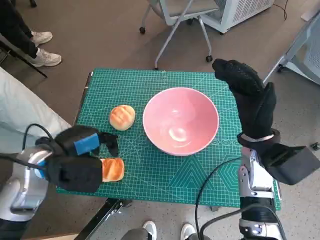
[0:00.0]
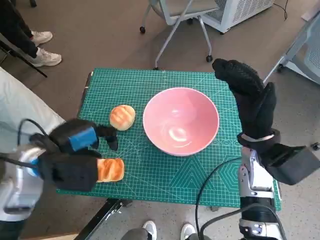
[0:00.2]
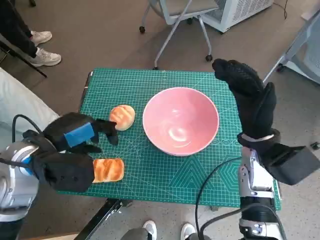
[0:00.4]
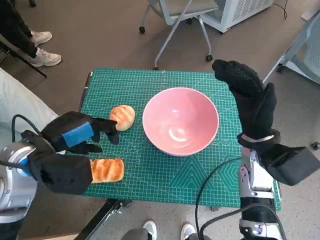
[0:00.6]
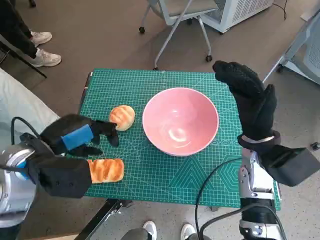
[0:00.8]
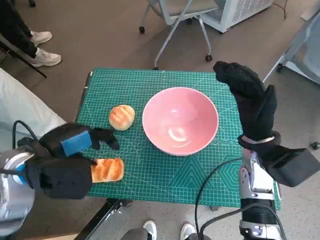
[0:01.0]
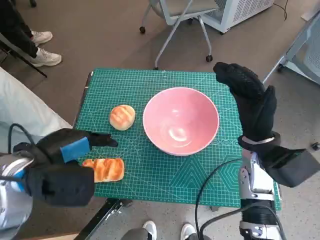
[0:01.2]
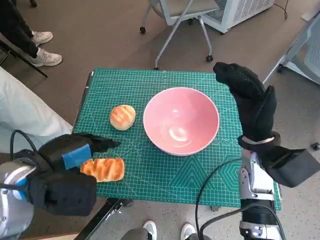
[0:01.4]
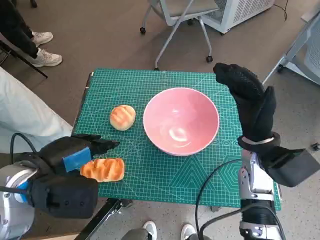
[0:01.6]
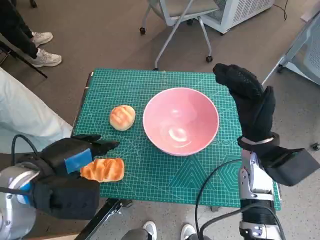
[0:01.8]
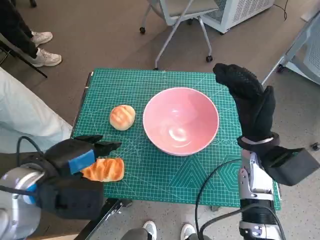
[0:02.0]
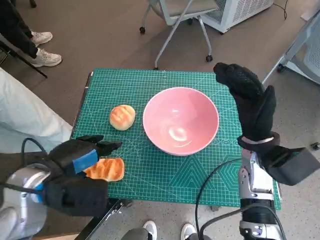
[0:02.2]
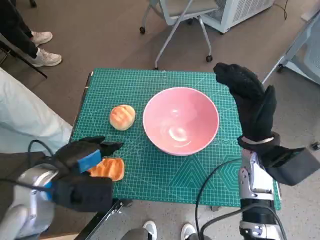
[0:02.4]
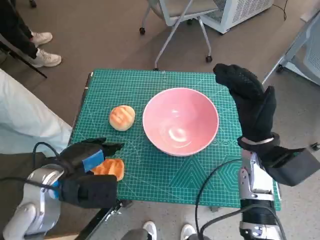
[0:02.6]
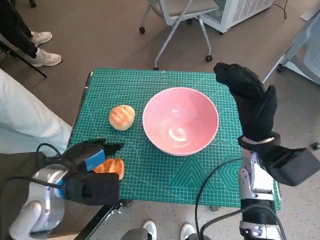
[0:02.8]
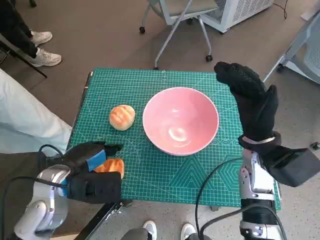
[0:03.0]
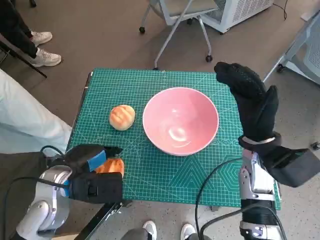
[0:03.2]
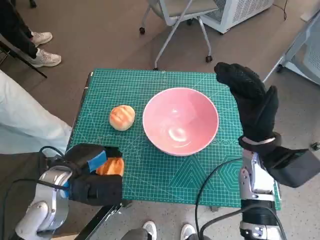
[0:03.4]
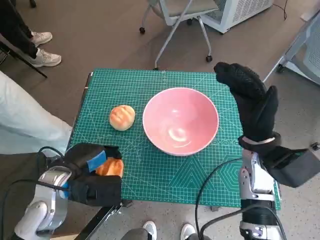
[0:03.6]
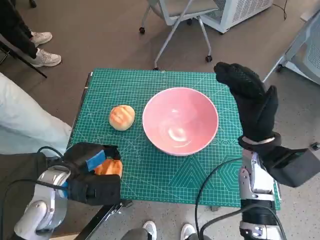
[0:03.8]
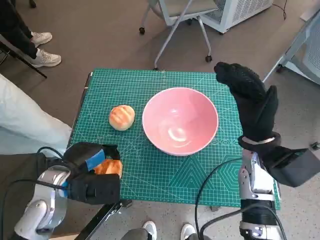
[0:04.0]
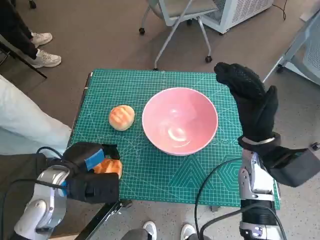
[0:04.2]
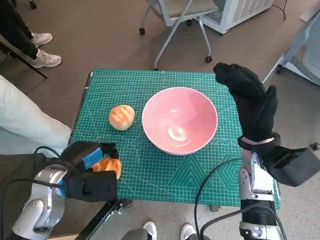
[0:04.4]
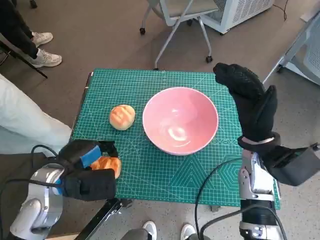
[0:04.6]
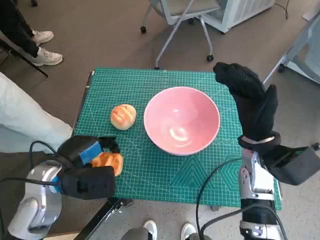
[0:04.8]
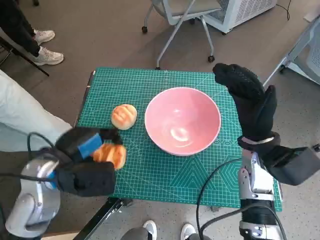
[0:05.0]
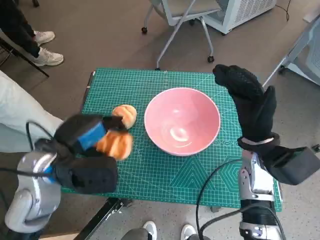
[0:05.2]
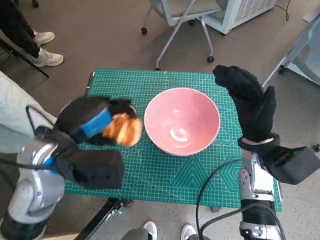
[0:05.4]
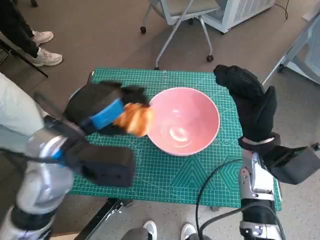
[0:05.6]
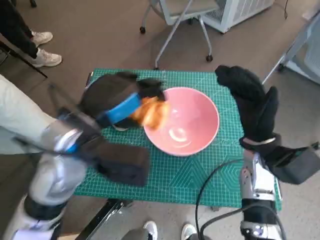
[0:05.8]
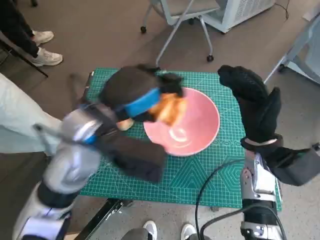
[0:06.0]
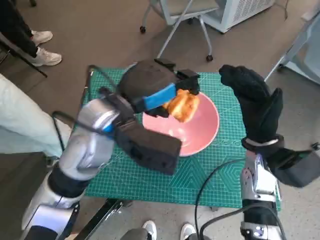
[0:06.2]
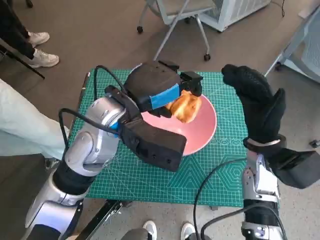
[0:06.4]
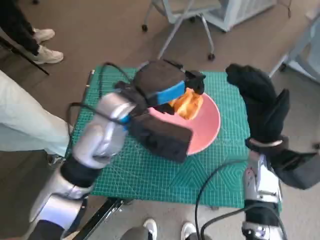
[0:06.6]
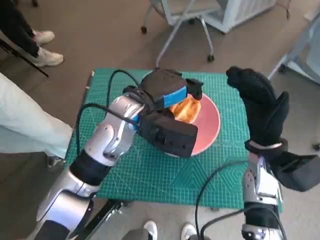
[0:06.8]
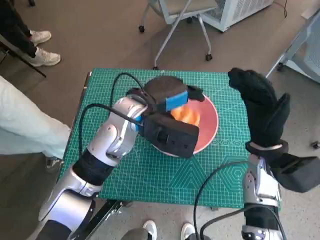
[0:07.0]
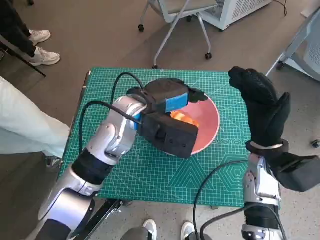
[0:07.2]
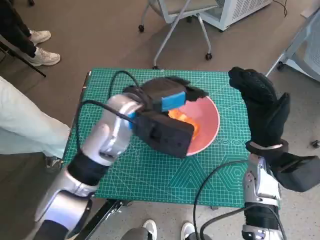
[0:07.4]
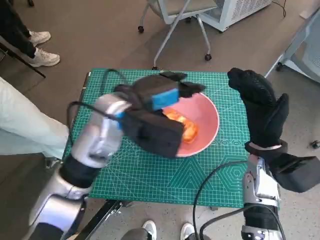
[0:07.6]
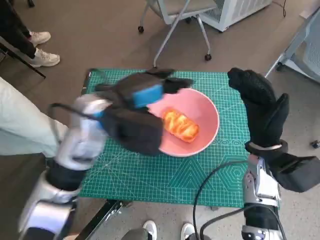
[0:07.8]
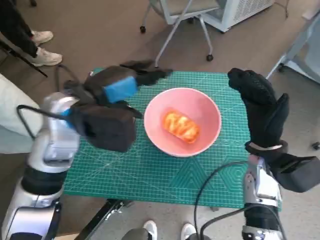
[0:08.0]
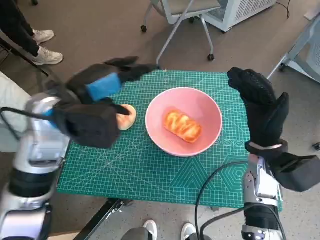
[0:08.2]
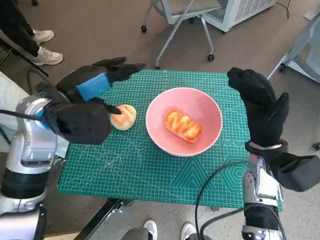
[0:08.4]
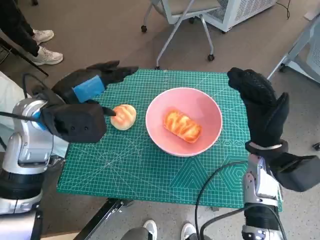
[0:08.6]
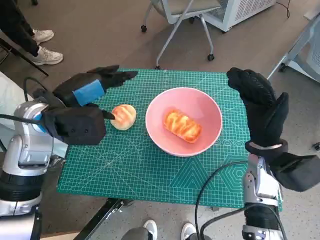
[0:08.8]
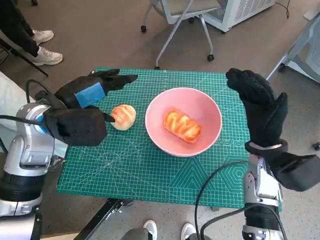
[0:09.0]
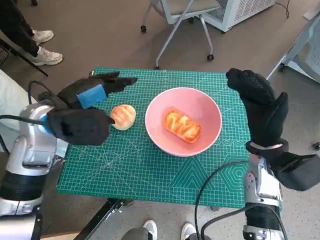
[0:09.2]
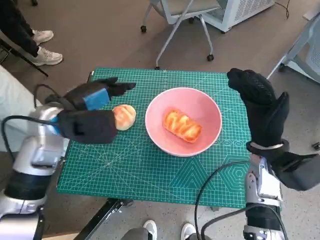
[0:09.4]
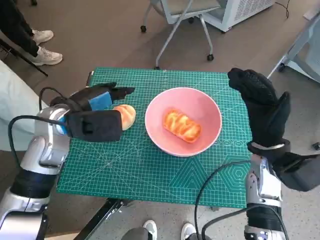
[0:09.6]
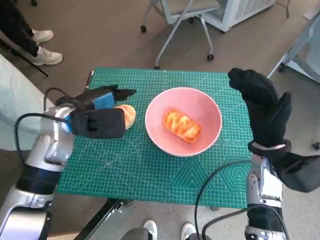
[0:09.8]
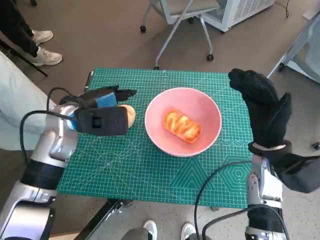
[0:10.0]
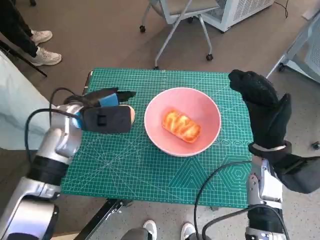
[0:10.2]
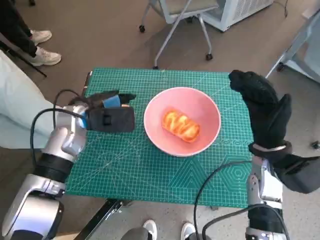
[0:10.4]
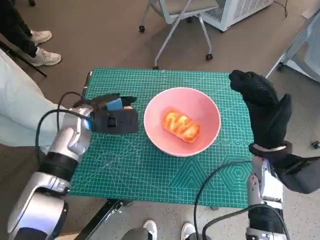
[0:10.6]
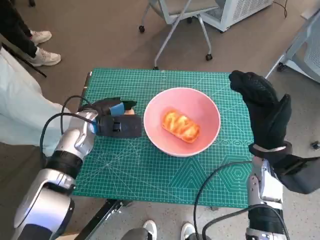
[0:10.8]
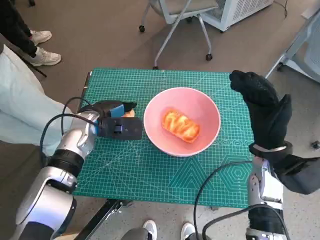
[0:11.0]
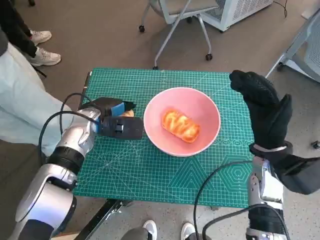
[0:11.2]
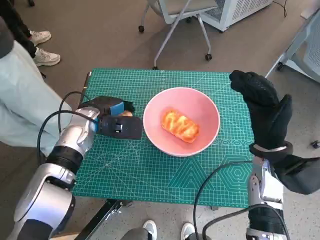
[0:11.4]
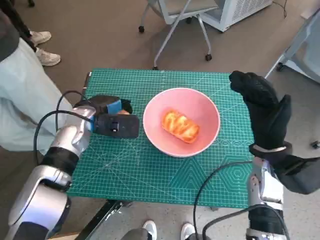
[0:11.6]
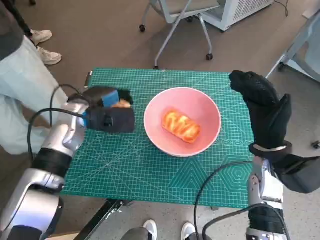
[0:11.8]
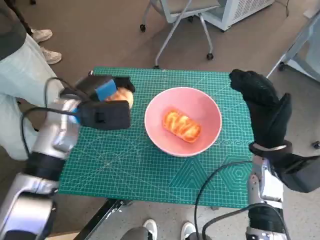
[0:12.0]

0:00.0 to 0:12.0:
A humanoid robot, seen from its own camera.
Task of the whole recording: Push the bowl into the center of the table and put the bread into the bowl.
Step, 0:00.0 to 0:03.8: Grasp the long bread with left hand.
Step, 0:04.0 to 0:07.4: Place the long bread in pink bowl with left hand.
Step, 0:07.8 to 0:11.6: Grasp the round bread with left hand.
0:00.0 to 0:01.6: The left hand changes place by some 5 cm.
0:01.6 to 0:03.0: The left hand heads downward, covering roughly 5 cm.
0:03.0 to 0:04.4: There are only small adjustments of the hands.
0:04.4 to 0:06.0: The left hand travels upward and to the right by about 15 cm.
0:06.0 to 0:07.6: The left hand travels forward by roughly 5 cm.
0:07.6 to 0:09.0: The left hand is displaced to the left by approximately 10 cm.
0:09.0 to 0:10.4: The left hand goes approximately 5 cm downward.
0:10.4 to 0:12.0: The hands make only small movements.

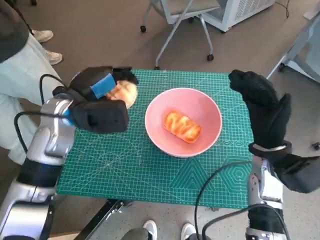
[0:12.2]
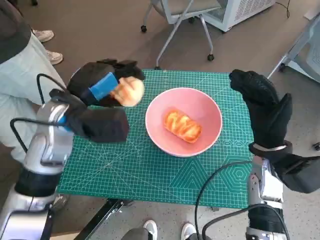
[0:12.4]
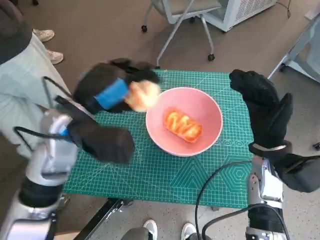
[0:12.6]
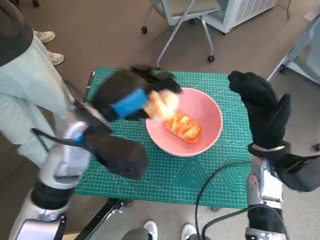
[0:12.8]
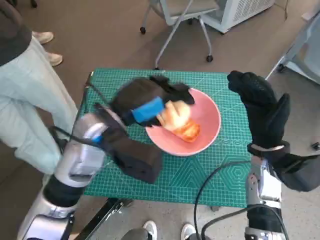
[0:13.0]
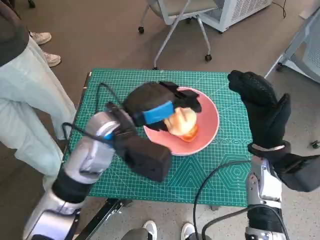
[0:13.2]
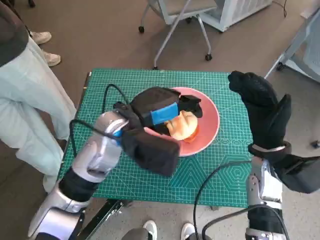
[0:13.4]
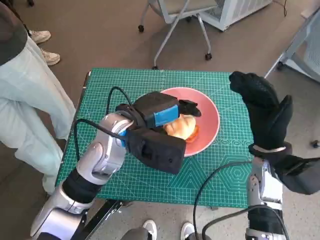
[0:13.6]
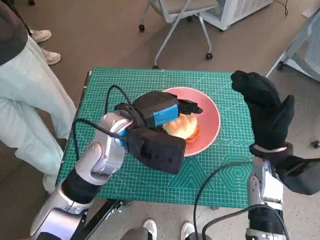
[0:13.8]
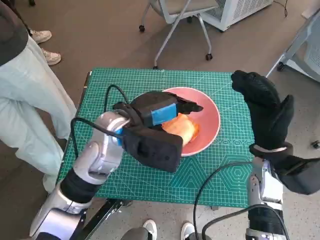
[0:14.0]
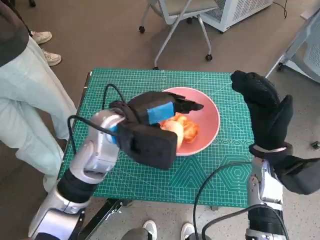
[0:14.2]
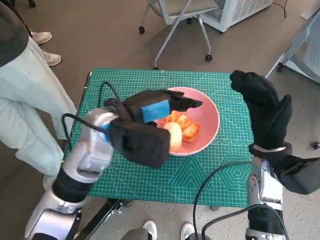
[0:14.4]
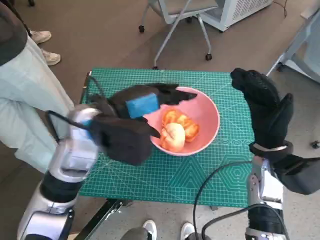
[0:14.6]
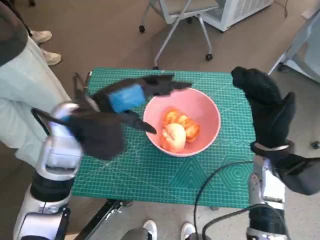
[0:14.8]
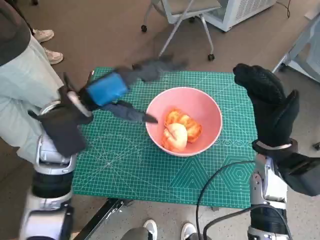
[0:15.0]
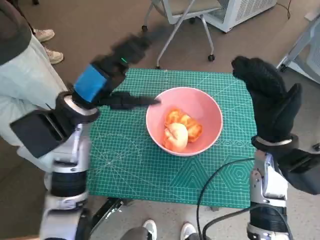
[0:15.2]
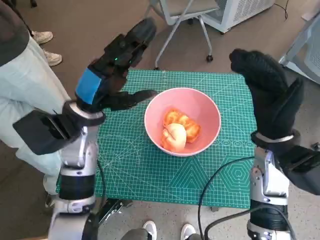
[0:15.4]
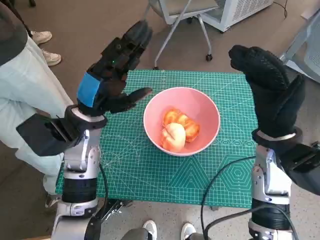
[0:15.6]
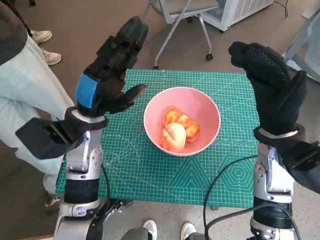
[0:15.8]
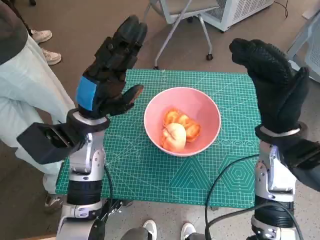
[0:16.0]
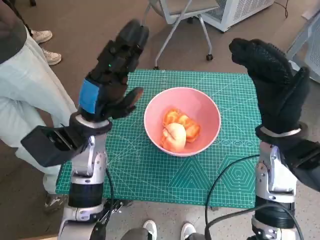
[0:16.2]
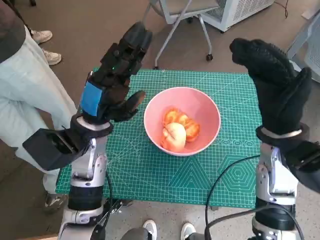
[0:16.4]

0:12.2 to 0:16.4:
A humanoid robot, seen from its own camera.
Task of the whole recording: Push the bowl into the center of the table and put the bread into the bowl.
Step, 0:12.2 to 0:14.6: Place the round bread in pink bowl with left hand.
0:12.2 to 0:13.6: The left hand is displaced to the right by approximately 10 cm.
0:13.6 to 0:15.0: The left hand goes some 10 cm to the left.
0:15.0 to 0:16.4: The right hand heads upward, covering about 5 cm; the left hand moves downward, approximately 5 cm.

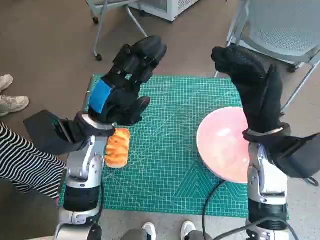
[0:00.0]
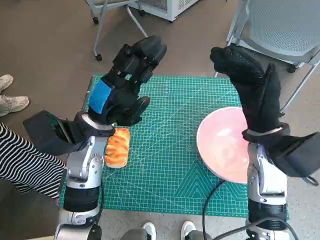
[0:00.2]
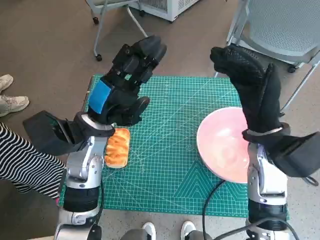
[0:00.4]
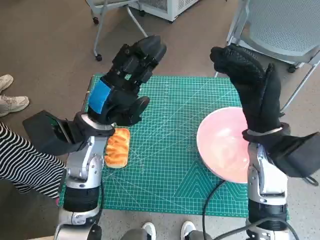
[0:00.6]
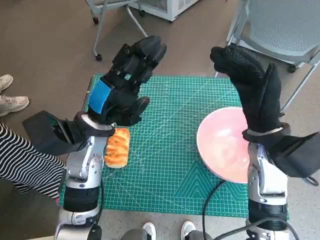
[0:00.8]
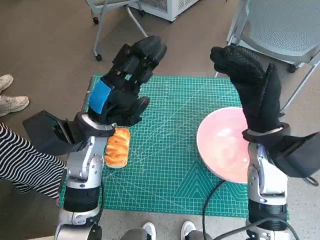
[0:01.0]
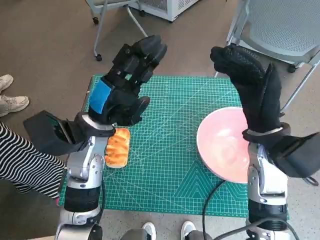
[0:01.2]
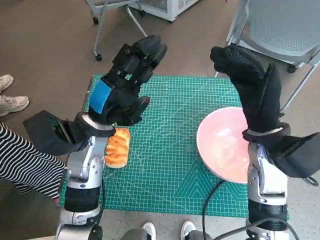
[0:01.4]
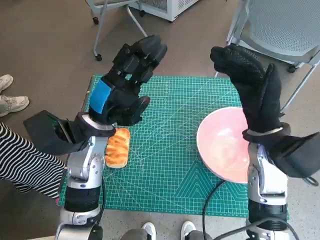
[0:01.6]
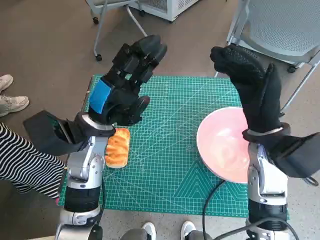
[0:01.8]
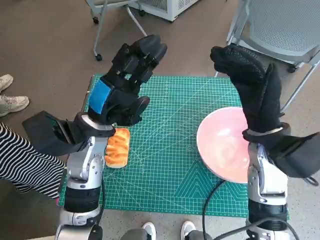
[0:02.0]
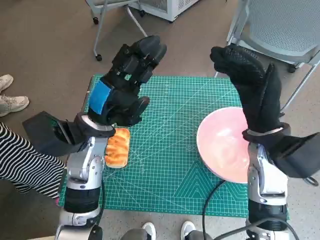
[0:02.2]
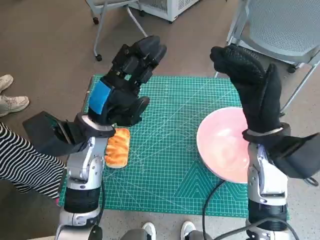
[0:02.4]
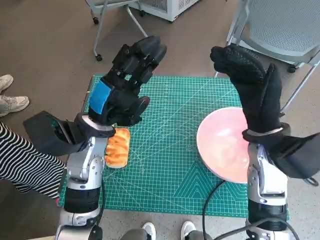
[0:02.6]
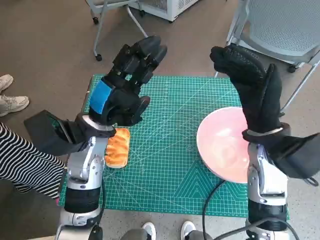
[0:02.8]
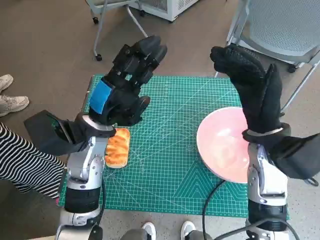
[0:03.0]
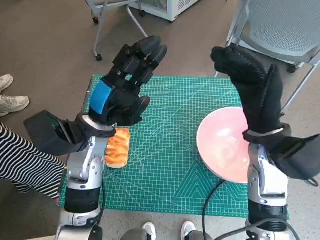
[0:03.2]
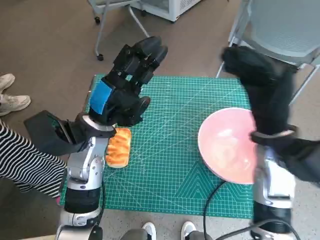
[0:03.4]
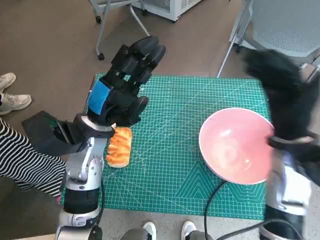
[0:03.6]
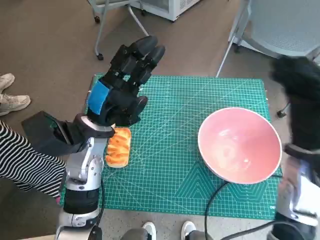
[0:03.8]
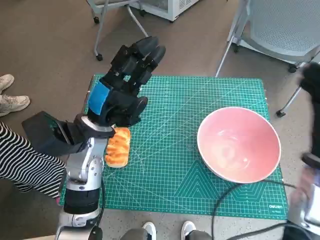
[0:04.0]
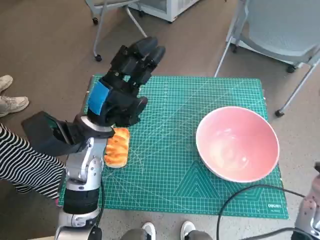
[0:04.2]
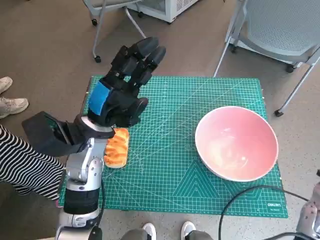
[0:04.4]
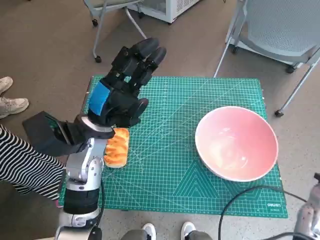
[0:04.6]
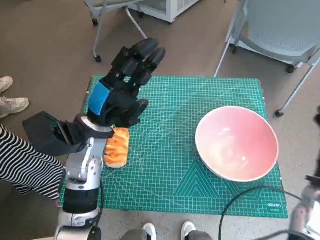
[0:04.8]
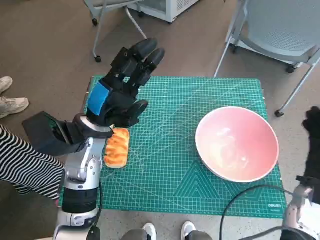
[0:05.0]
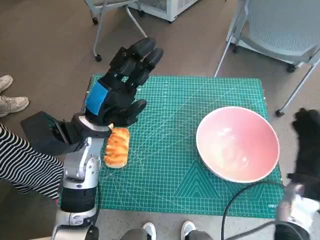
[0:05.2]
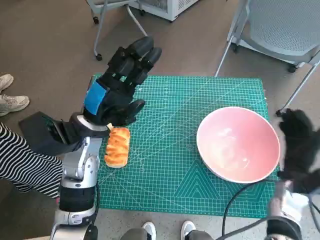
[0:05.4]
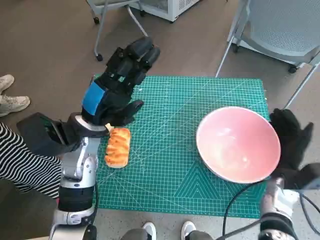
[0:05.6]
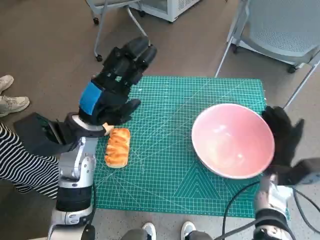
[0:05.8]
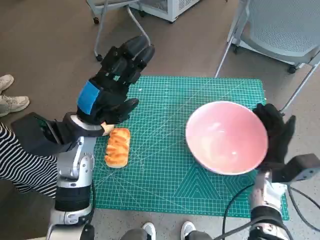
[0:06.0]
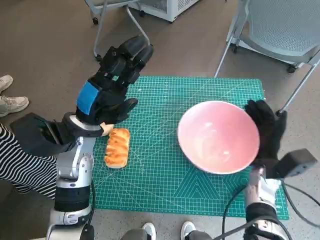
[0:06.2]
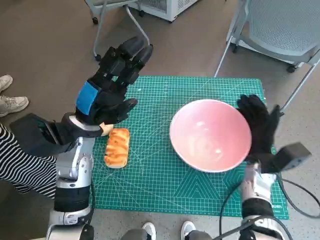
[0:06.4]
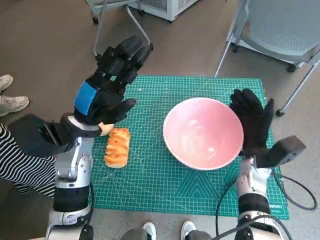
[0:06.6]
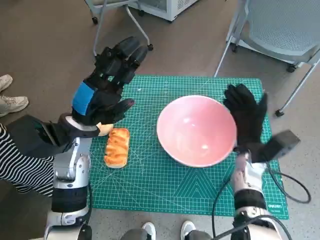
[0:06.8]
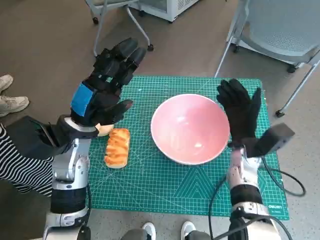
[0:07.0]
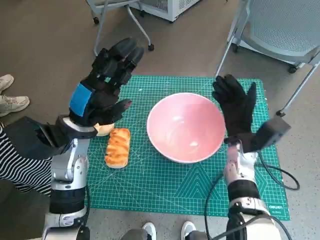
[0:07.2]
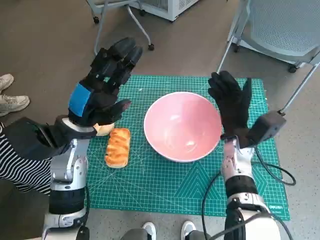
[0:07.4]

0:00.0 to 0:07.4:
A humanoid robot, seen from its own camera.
Task of the whole recording: Push the bowl into the center of the table and put the bread into the bowl.
0:01.4 to 0:03.0: Both hands stay about where they are.
0:03.0 to 0:04.4: The right hand heads to the right and backward, covering roughly 15 cm.
0:04.4 to 0:06.0: The right hand travels downward and to the left by some 10 cm.
0:06.0 to 0:07.4: The right hand is displaced to the left and forward by some 10 cm.
